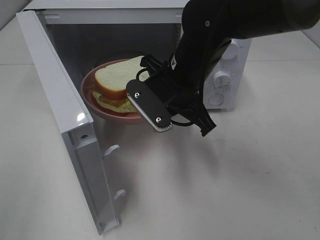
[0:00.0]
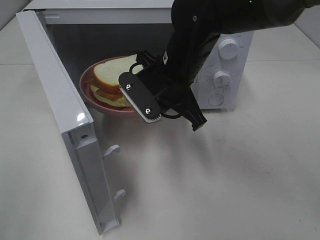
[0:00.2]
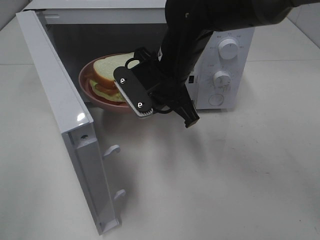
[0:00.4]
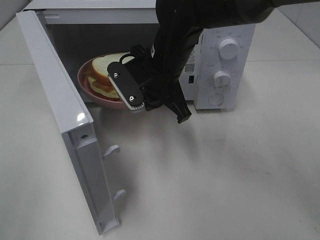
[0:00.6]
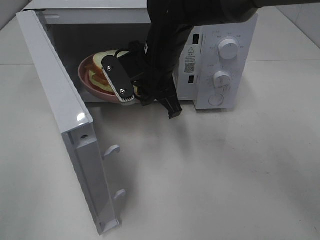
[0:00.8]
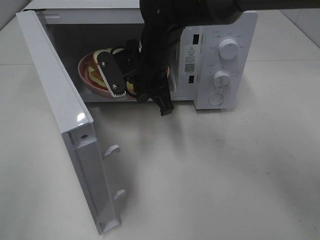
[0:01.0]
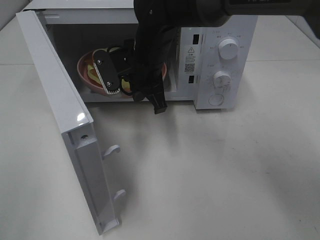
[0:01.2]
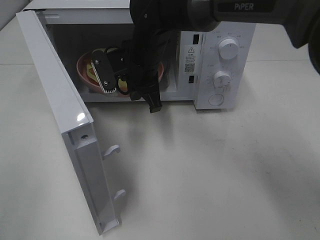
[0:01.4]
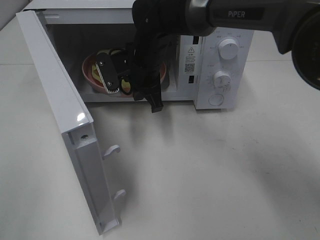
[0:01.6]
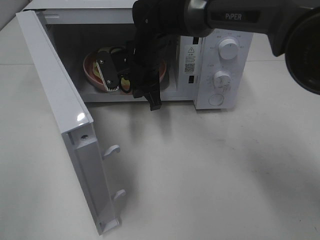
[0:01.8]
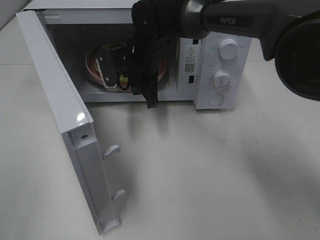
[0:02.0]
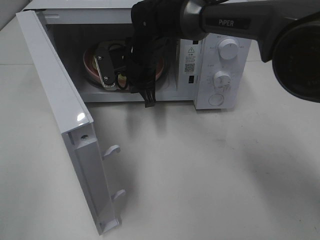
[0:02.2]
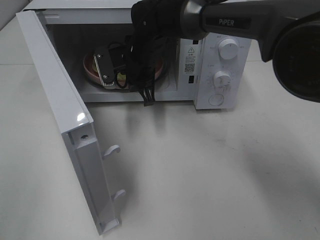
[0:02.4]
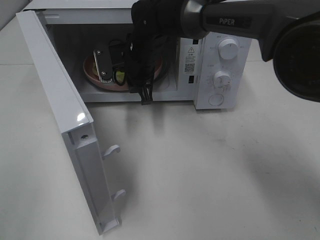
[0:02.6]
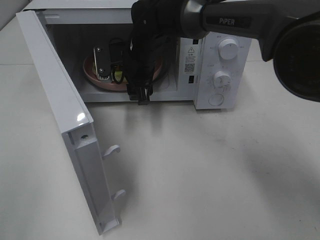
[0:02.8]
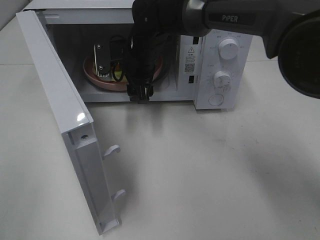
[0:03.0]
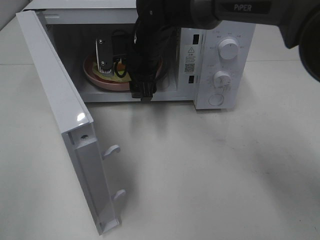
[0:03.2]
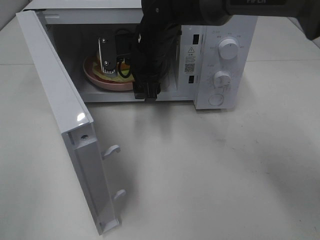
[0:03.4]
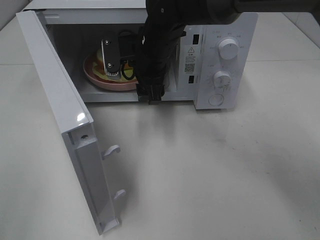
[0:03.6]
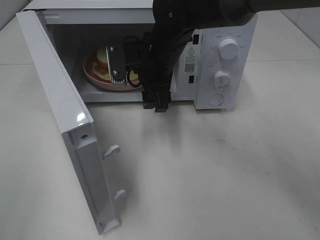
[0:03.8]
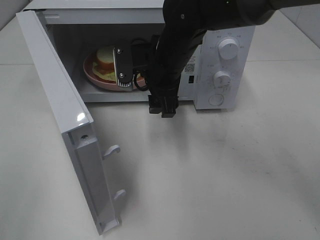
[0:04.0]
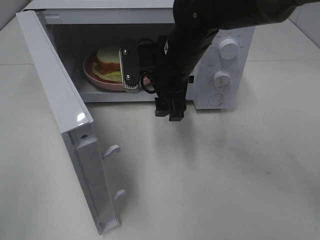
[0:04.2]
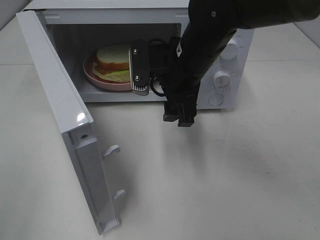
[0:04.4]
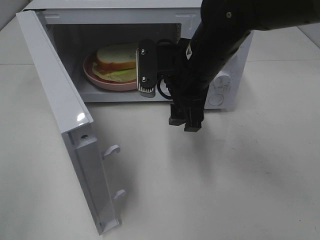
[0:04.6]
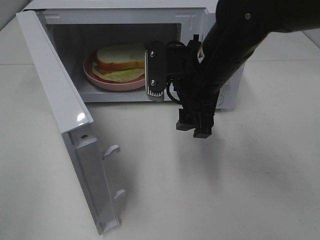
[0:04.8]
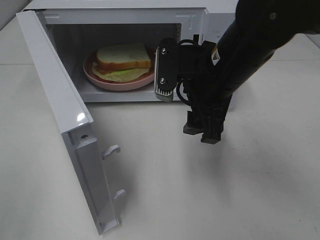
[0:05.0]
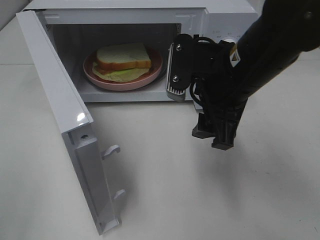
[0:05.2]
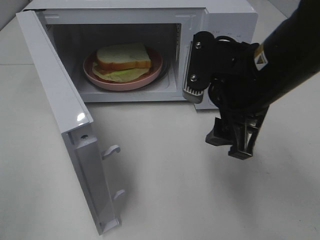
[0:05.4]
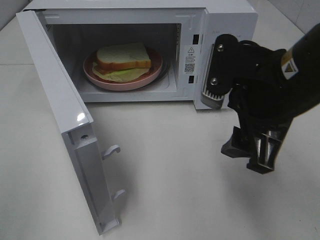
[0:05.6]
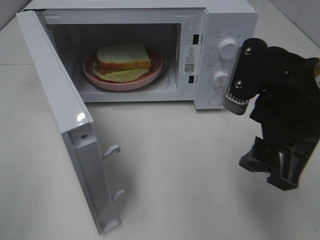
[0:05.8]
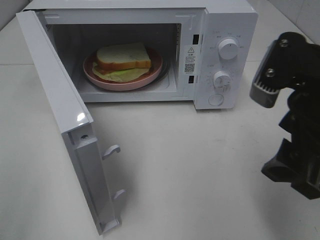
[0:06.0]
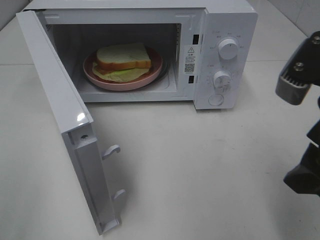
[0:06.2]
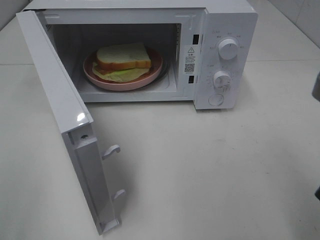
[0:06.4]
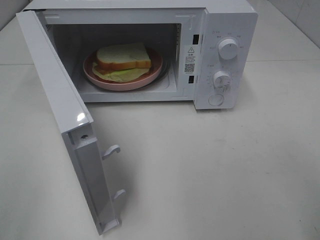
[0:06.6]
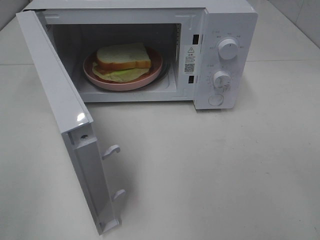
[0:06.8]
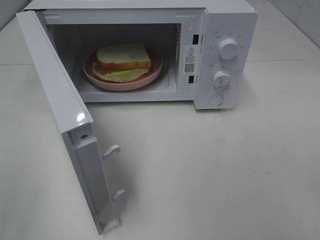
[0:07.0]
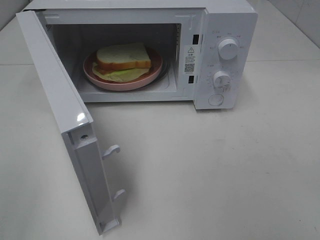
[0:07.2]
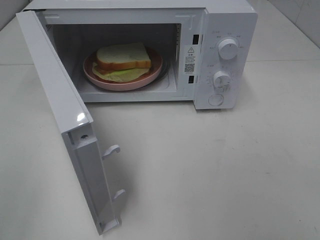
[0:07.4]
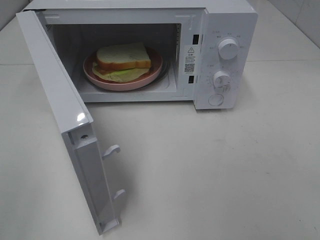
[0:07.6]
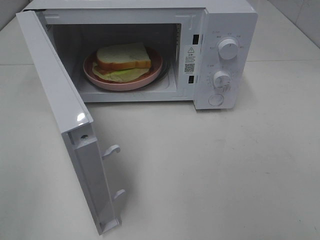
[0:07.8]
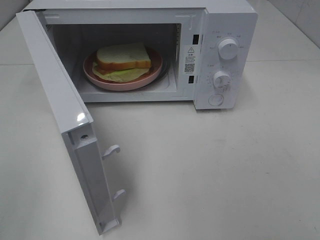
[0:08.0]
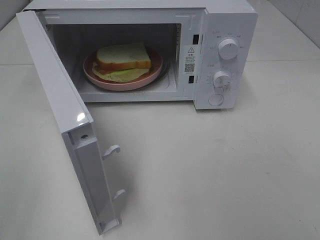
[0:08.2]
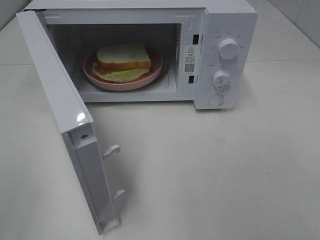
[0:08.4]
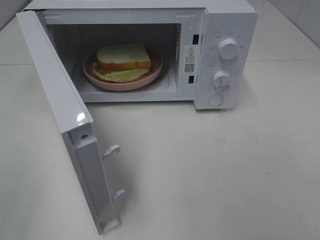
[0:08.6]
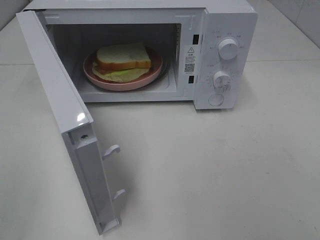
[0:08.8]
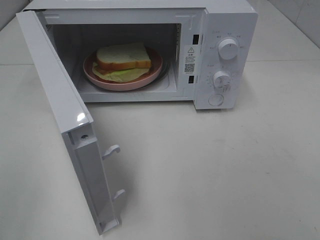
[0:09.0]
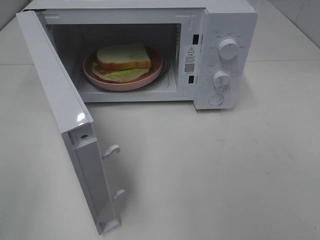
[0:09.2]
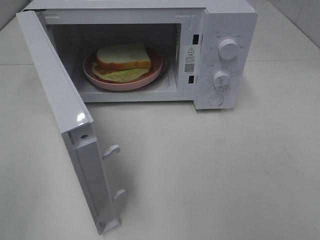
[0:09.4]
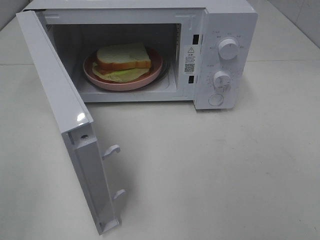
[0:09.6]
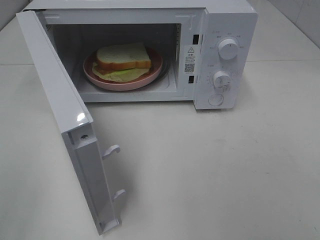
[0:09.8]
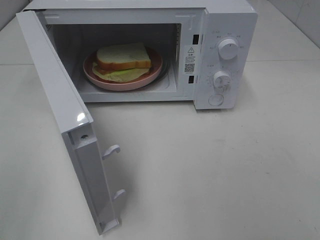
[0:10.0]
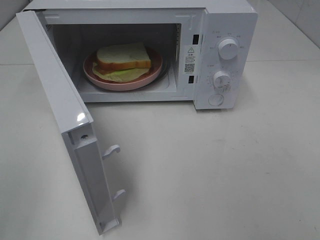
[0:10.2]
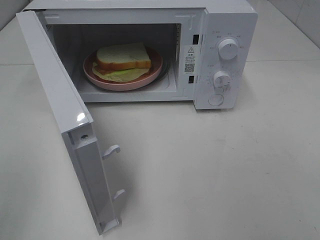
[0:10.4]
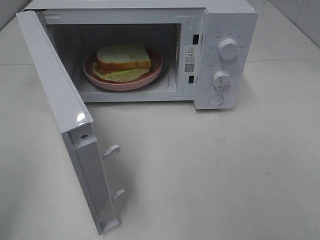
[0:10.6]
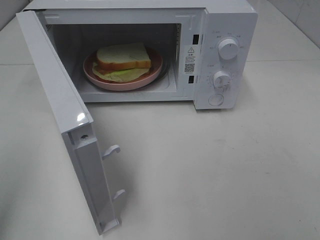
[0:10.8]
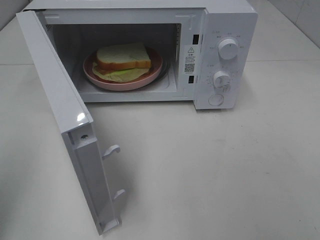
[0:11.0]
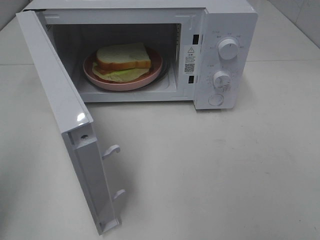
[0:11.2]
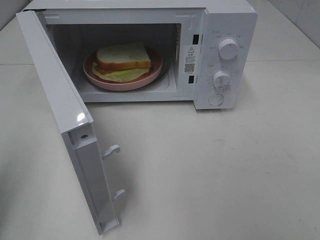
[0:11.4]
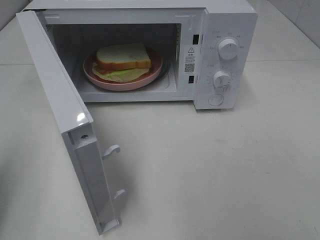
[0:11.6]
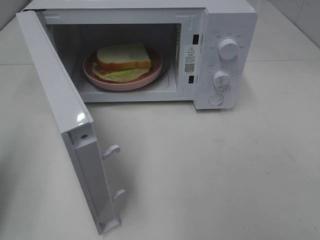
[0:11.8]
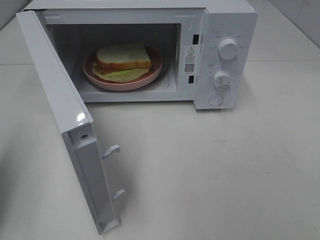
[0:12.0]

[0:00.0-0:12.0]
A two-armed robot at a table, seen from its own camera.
Task of the whole recording: Heat Sandwich.
Step, 0:00.0 to 0:03.4: Right hand: place the plate in the microwave.
0:00.0 to 0:01.6: The right gripper heads forward and to the left, covering some 10 cm.
0:01.6 to 0:03.0: The right gripper opens its fingers.
0:03.0 to 0:04.4: The right gripper heads backward and to the right, covering roughly 15 cm.
0:04.4 to 0:06.0: The right gripper travels backward and to the right by roughly 20 cm.
0:06.0 to 0:07.6: The right gripper heads backward and to the right, covering some 15 cm.
0:10.4 to 0:12.0: The left gripper travels forward and downward by roughly 15 cm, and closes its fingers.

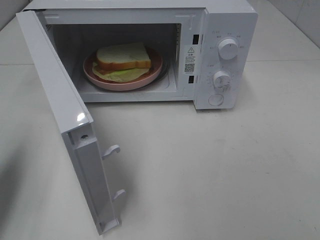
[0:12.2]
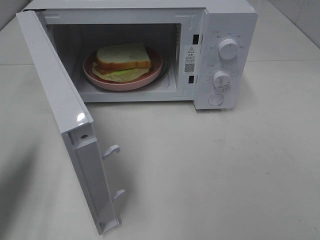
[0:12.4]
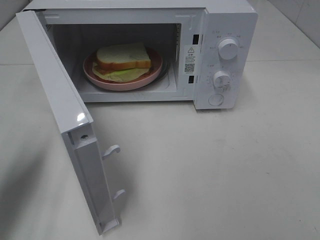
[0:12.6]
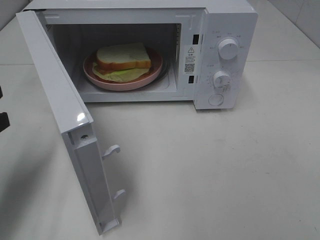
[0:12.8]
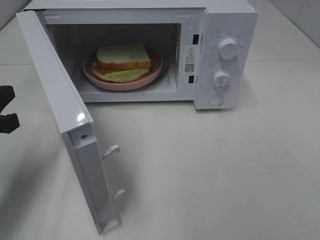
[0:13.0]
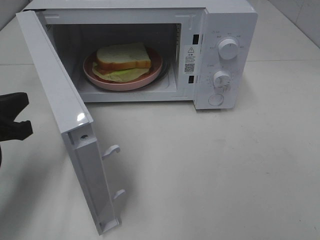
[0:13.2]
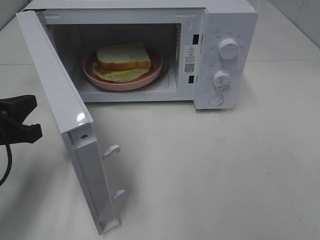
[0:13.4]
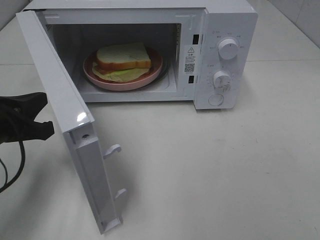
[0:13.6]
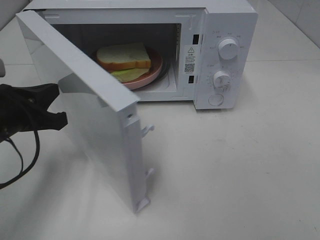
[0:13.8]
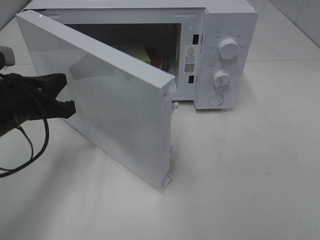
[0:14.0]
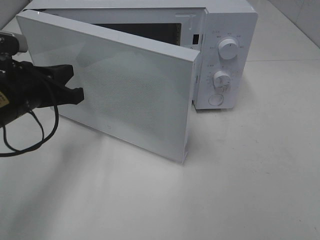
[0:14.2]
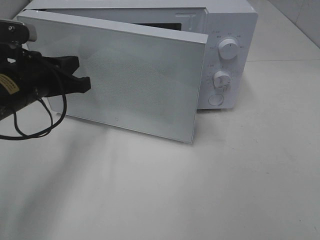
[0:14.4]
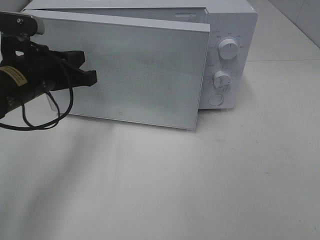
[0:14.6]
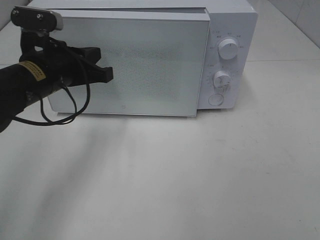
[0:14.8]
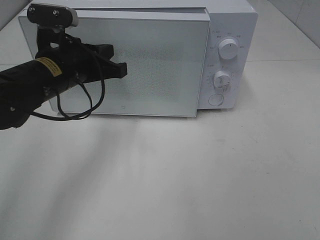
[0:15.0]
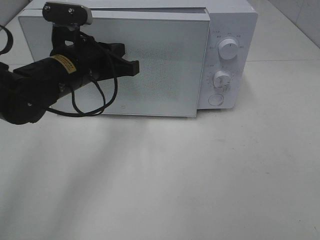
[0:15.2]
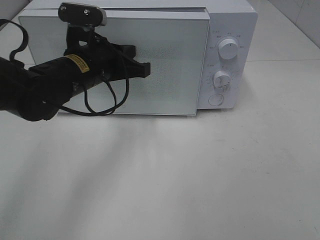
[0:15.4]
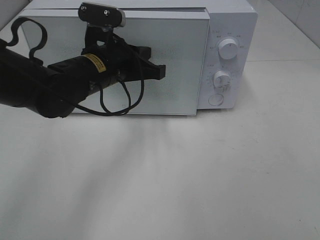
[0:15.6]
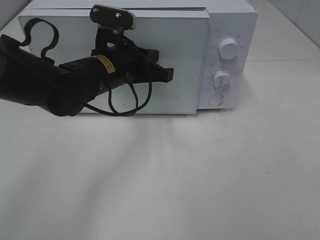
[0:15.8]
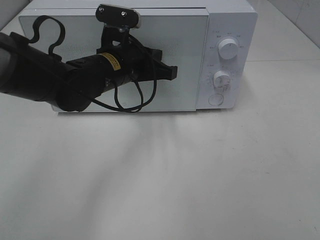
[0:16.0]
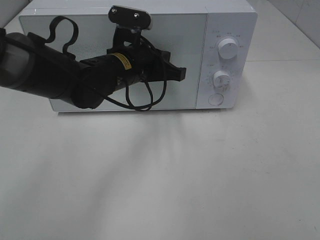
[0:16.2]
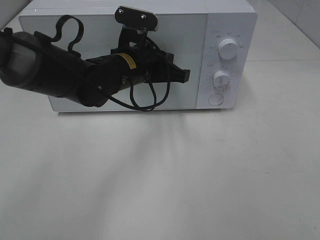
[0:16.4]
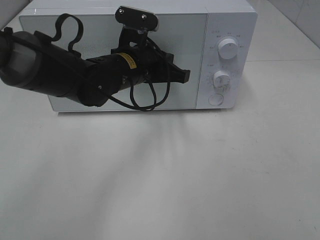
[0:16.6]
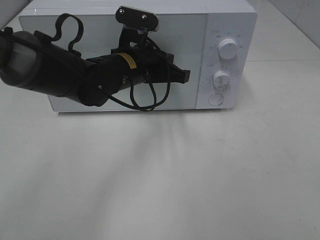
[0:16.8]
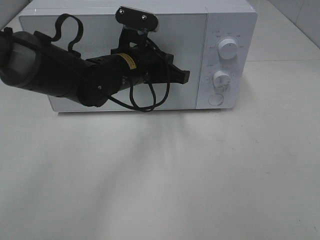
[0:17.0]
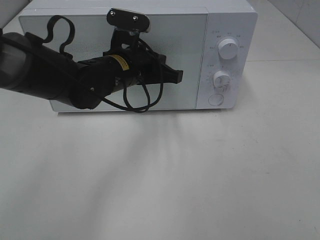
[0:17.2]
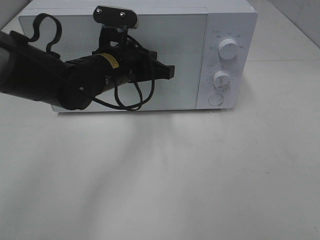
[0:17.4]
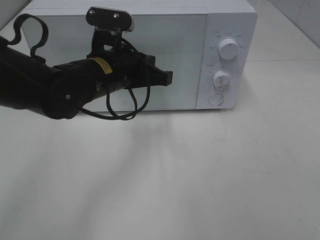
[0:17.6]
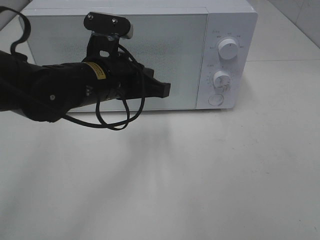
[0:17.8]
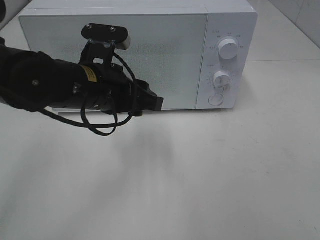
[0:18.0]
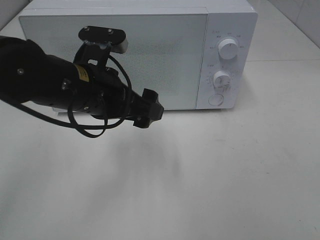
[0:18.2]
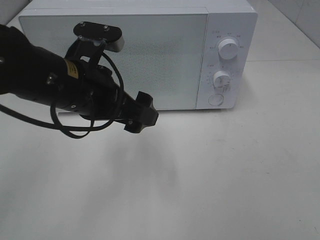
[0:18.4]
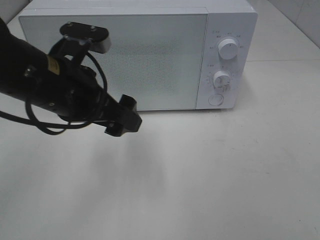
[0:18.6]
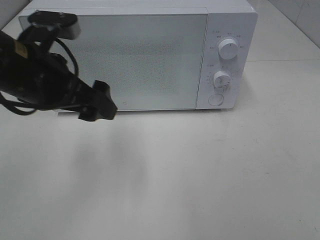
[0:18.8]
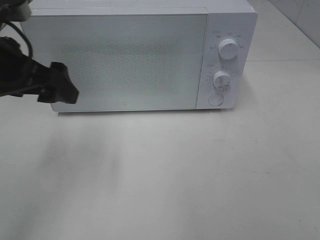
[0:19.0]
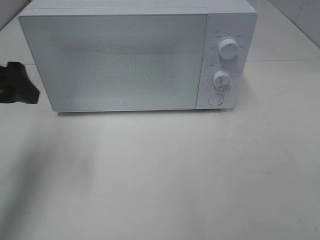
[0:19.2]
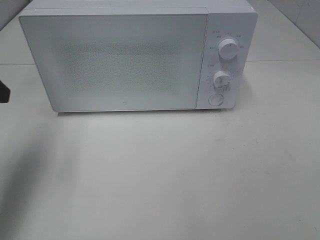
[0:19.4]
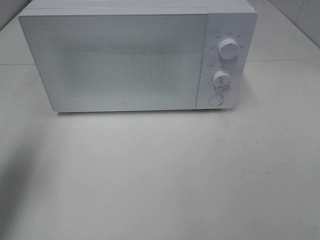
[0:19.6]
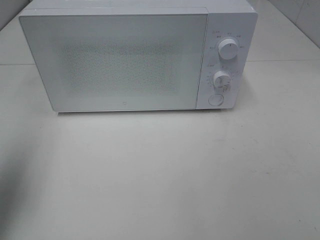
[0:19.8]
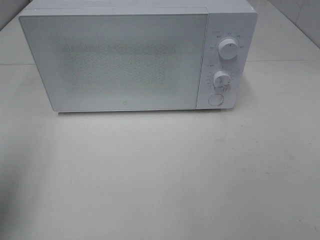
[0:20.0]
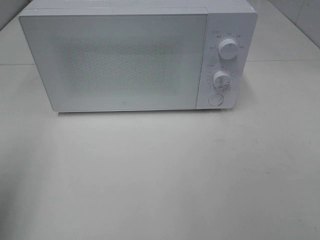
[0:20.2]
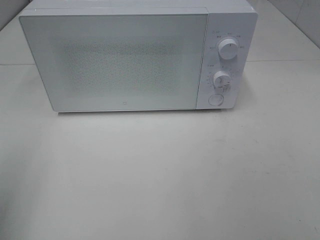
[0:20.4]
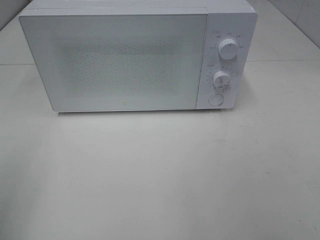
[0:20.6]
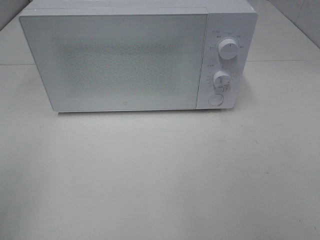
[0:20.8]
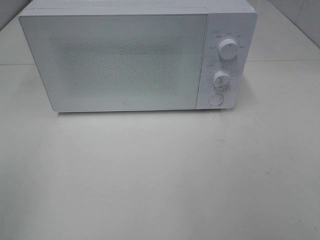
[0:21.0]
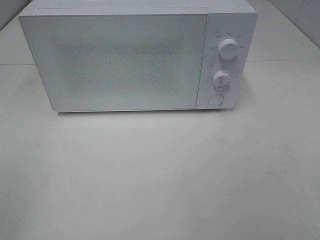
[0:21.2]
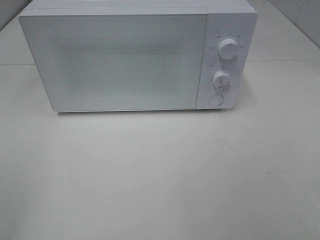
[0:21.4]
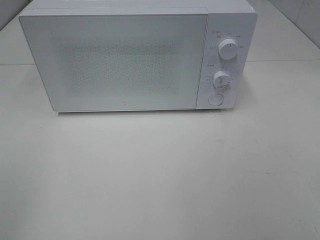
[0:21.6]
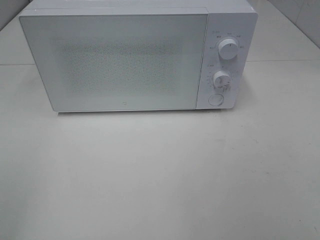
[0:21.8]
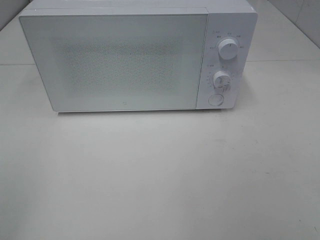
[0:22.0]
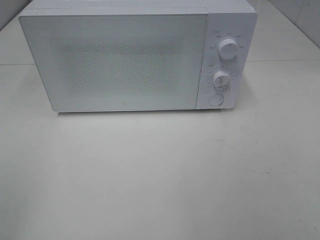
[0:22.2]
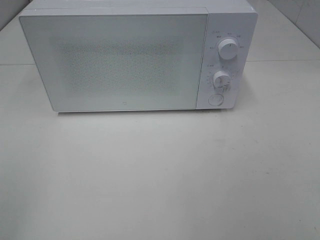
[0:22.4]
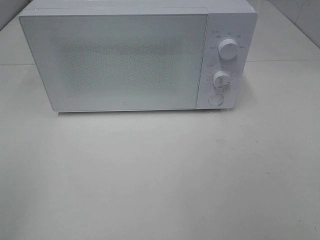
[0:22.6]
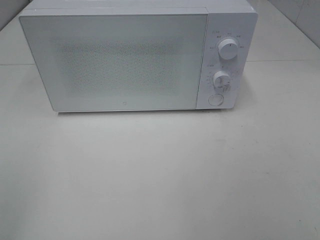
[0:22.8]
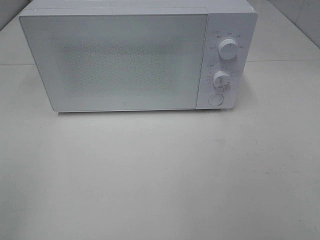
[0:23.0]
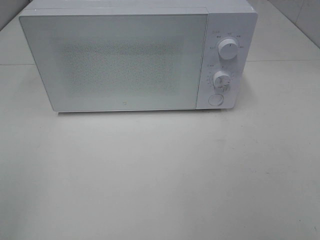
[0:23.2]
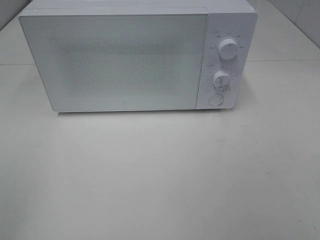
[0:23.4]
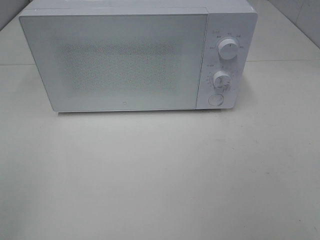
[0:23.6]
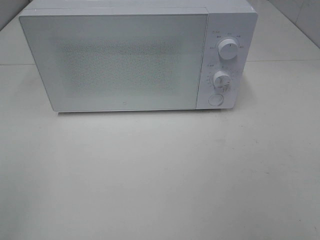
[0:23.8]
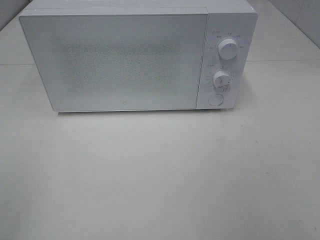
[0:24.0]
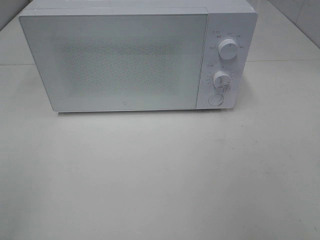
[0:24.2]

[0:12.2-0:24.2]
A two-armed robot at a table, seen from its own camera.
Task of the whole recording: Heat Sandwich.
Step, 0:12.2 to 0:17.4: Left hand: close the microwave door.
0:12.2 to 0:13.8: The left gripper heads to the right, forward and downward, covering approximately 15 cm.
0:13.8 to 0:15.2: The left gripper travels to the right and forward by roughly 15 cm.
0:15.2 to 0:16.6: The left gripper shifts about 5 cm to the right.
0:16.6 to 0:18.2: The left gripper goes roughly 10 cm backward, and opens its fingers.
0:18.2 to 0:19.8: The left gripper is displaced to the left by about 25 cm.
0:19.8 to 0:21.2: The left gripper travels backward by about 15 cm.
0:21.2 to 0:22.6: The two grippers keep their place.
